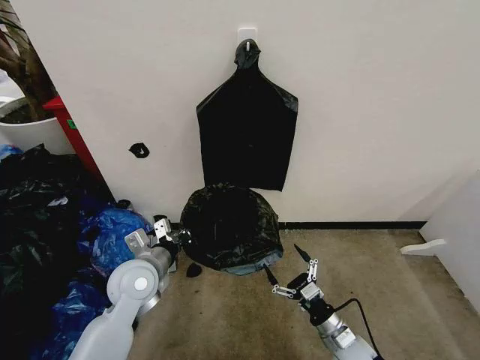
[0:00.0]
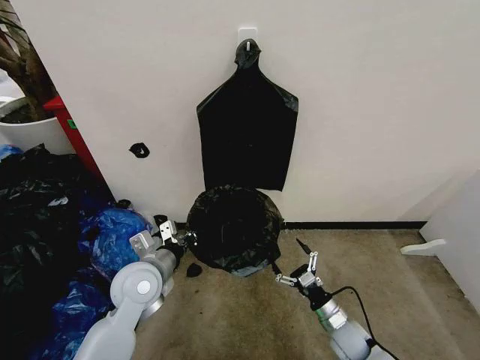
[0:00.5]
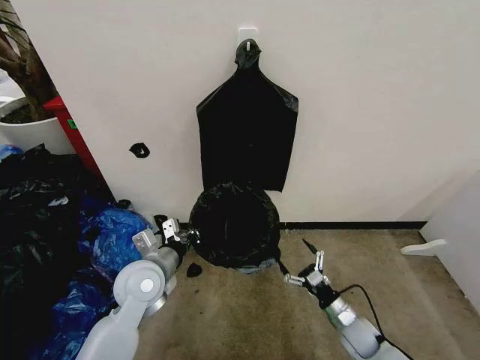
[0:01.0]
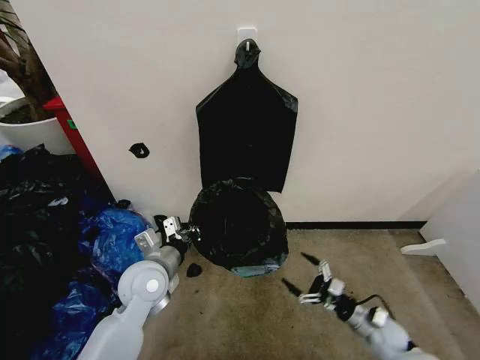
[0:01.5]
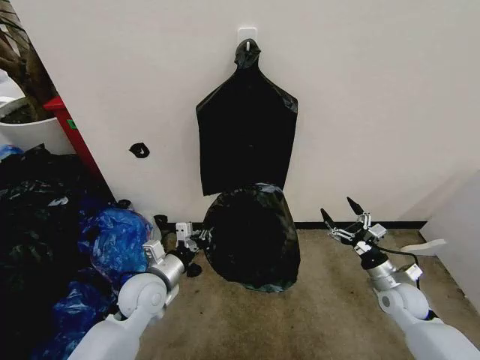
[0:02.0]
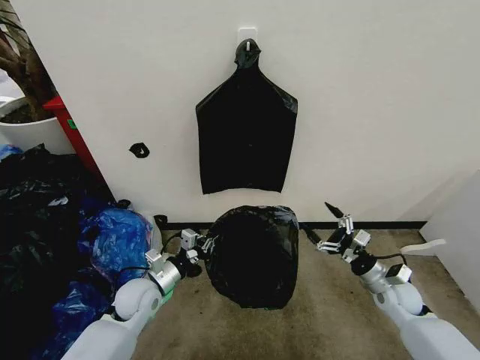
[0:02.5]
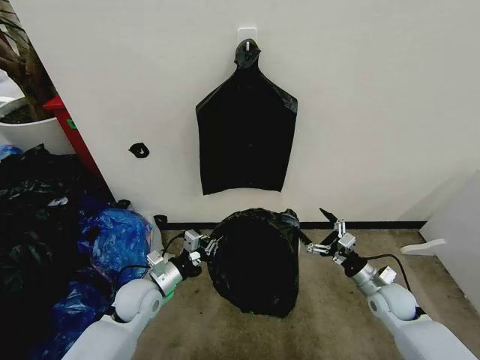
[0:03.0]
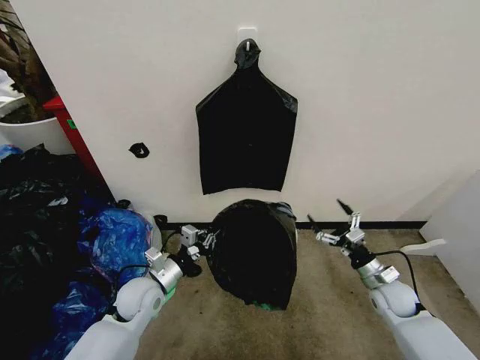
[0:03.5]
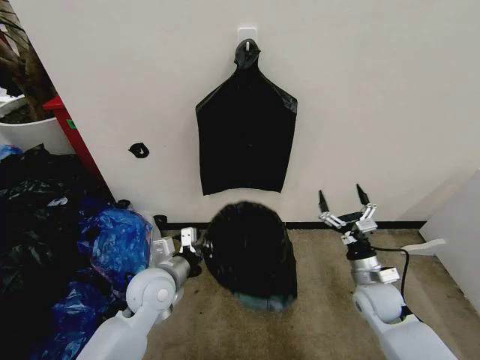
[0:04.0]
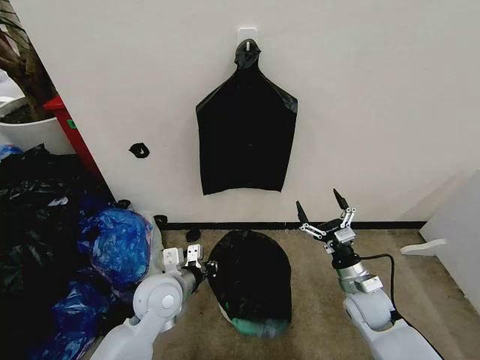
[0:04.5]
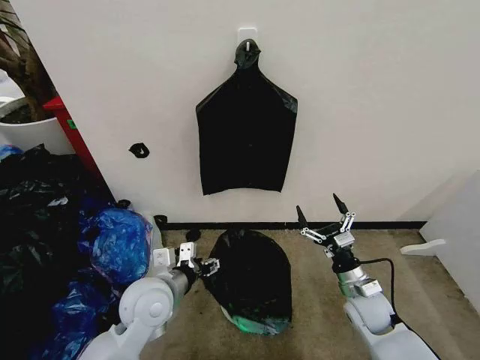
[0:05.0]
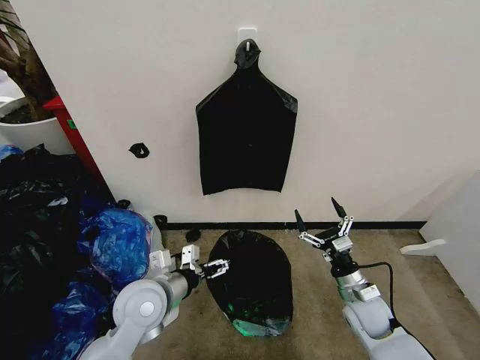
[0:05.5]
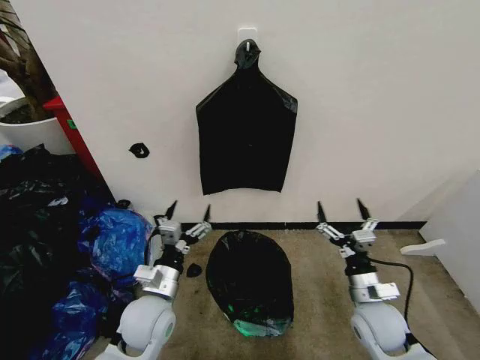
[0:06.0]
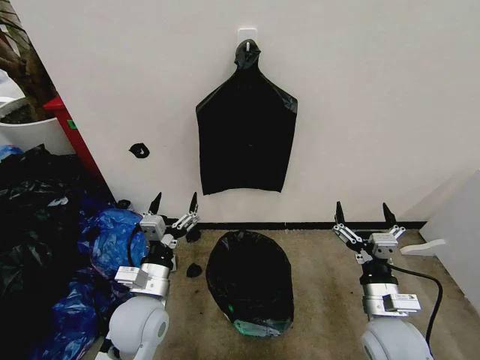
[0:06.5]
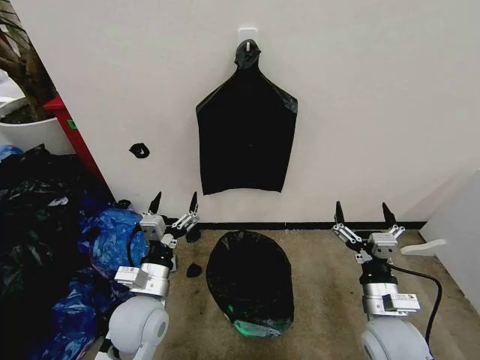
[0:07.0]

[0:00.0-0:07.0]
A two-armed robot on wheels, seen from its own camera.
Task of the whole recording: Place the garbage bag over the trash bin.
0:00.0 to 0:02.0: The right gripper shifts roughly 20 cm to the right, forward and upward. Meanwhile the left gripper is displaced downward by roughly 5 cm.
0:03.5 to 0:05.0: The right gripper is displaced to the left by roughly 10 cm. Meanwhile the left gripper moves upward and to the right, roughly 10 cm, and opens up.
0:05.0 to 0:07.0: The right gripper is displaced backward and upward by about 10 cm.

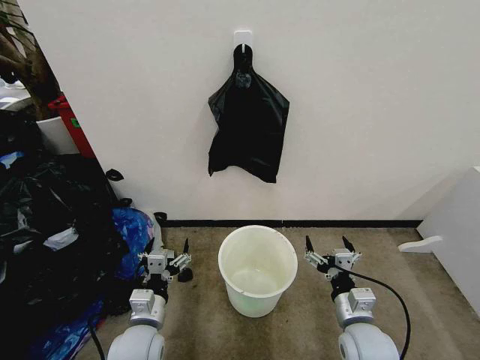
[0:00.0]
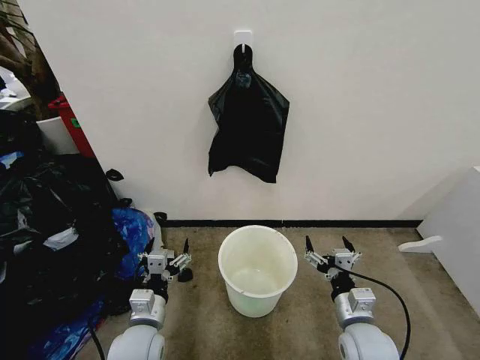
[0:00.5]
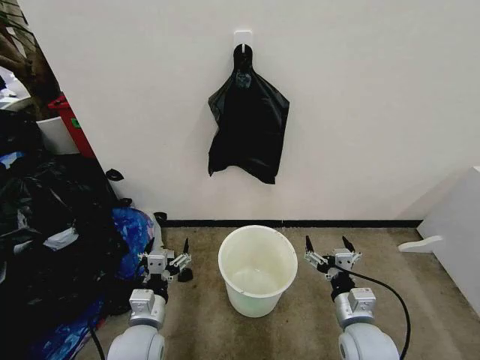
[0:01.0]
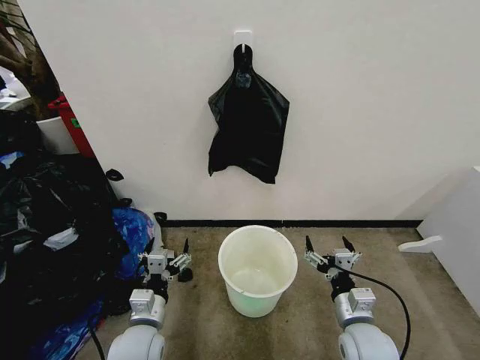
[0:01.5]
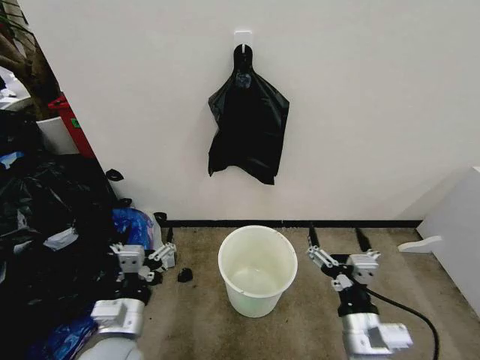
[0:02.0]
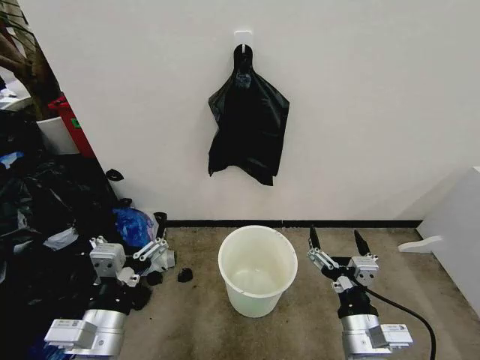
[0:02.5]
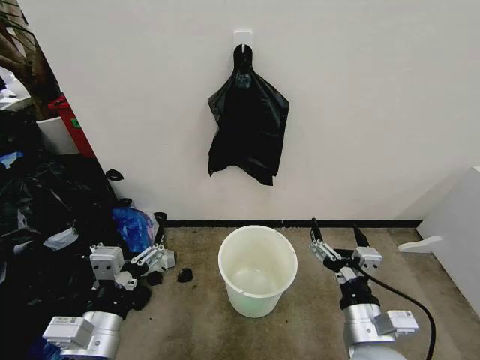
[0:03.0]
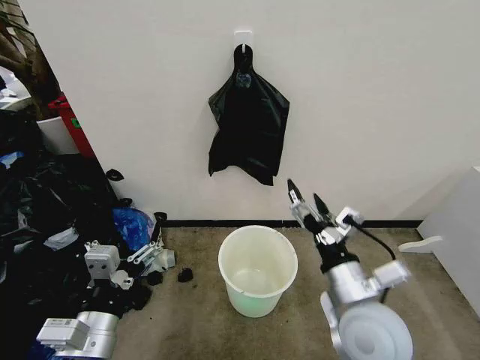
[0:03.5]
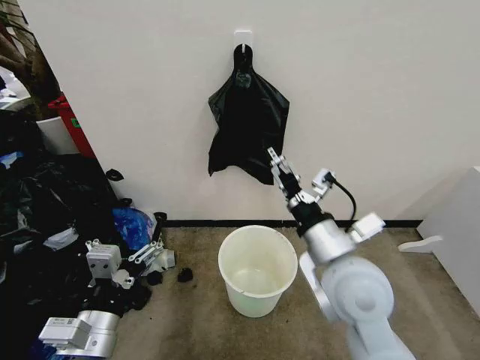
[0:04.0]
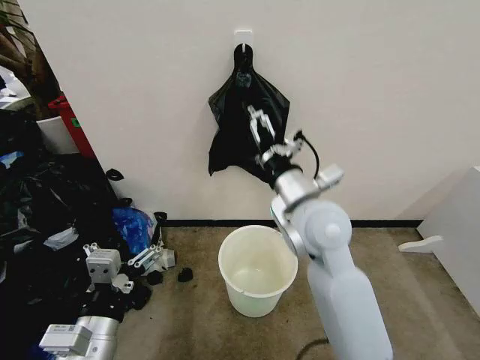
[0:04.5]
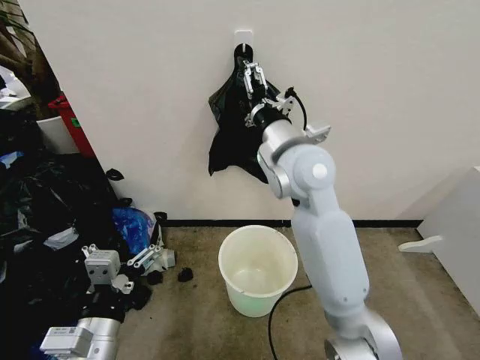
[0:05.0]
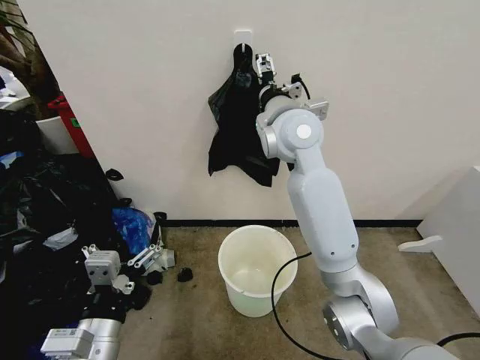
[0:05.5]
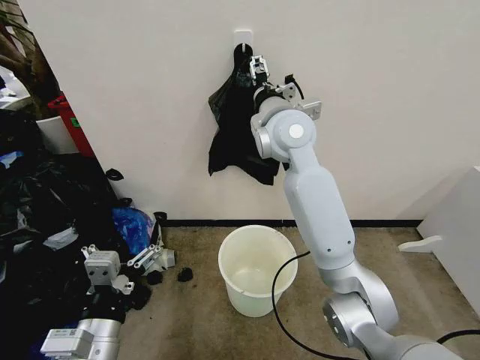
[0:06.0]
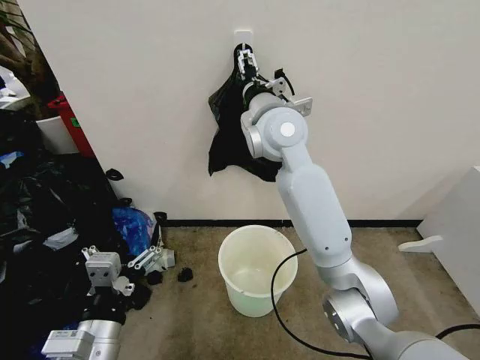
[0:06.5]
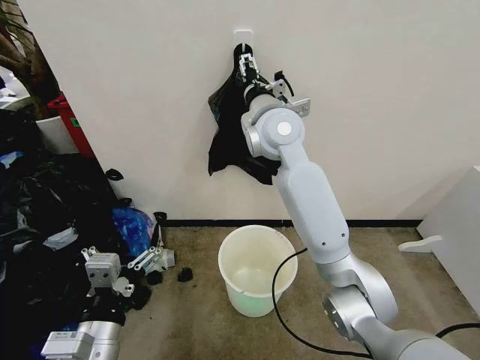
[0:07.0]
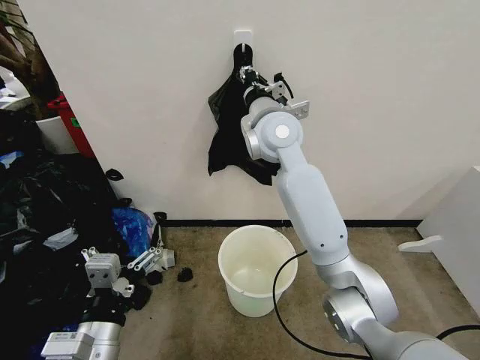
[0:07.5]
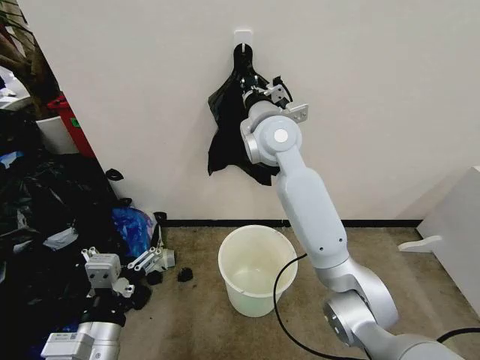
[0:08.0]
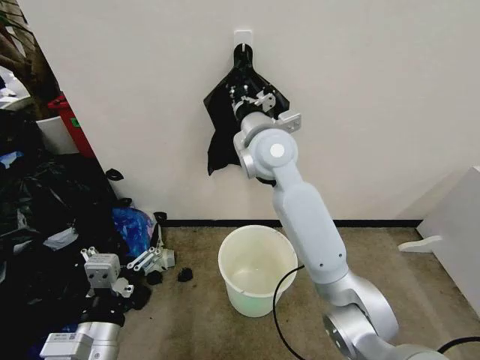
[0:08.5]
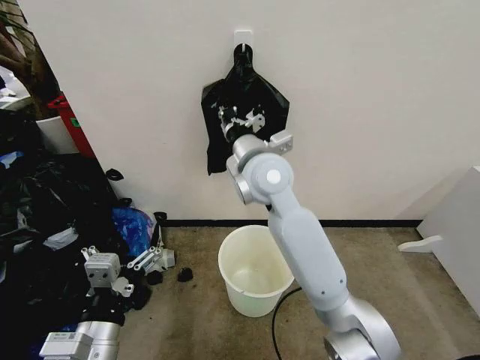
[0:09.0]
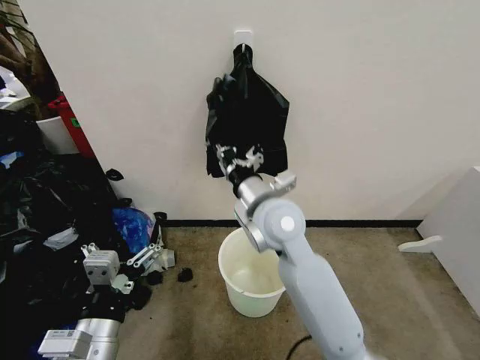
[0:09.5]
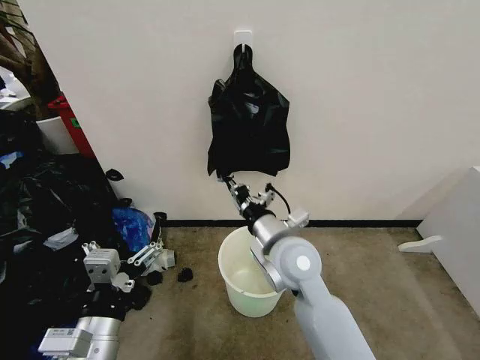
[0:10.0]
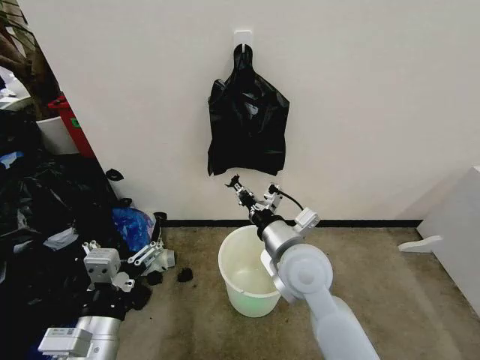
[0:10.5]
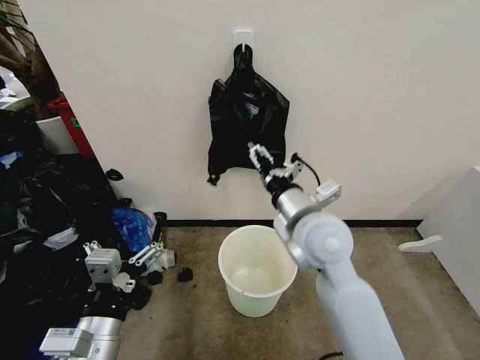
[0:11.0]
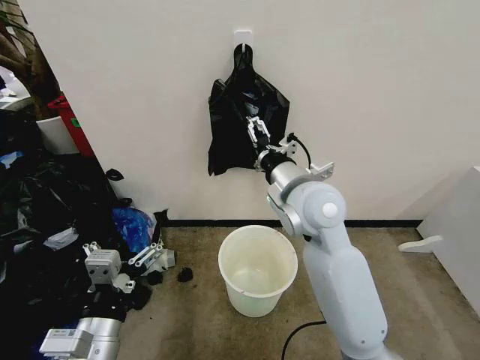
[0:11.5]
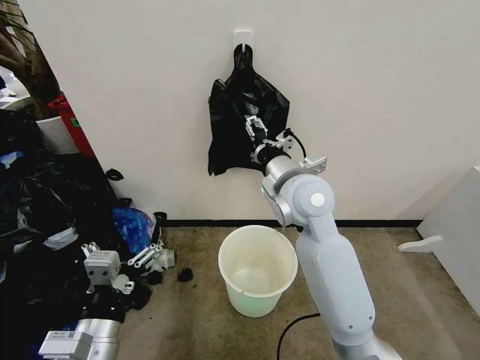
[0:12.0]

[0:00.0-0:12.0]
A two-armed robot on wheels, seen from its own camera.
Task of the whole recording: Place the garbage bag over the trash bin.
0:02.0 to 0:04.0: The right gripper shifts about 15 cm upward and forward. Meanwhile the left gripper goes approximately 5 cm upward.
0:04.0 to 0:06.0: The right gripper moves forward and upward, approximately 25 cm.
0:06.0 to 0:08.0: The right gripper closes up.
0:08.0 to 0:10.0: The right gripper is displaced backward and downward by about 20 cm.
0:10.0 to 0:12.0: The right gripper goes approximately 10 cm upward and forward, and opens.

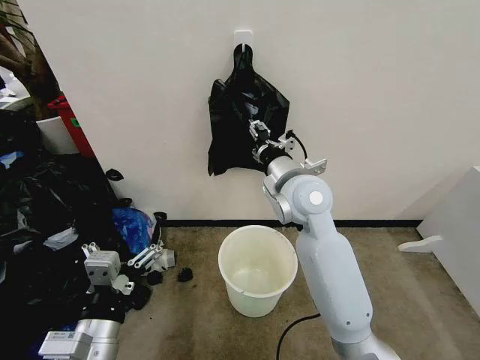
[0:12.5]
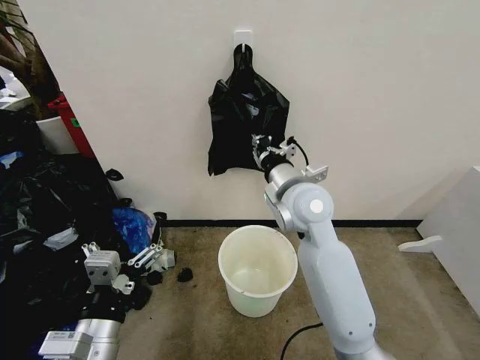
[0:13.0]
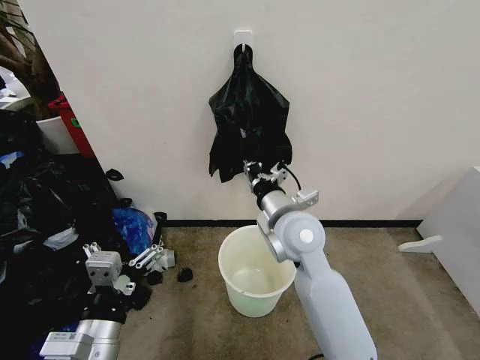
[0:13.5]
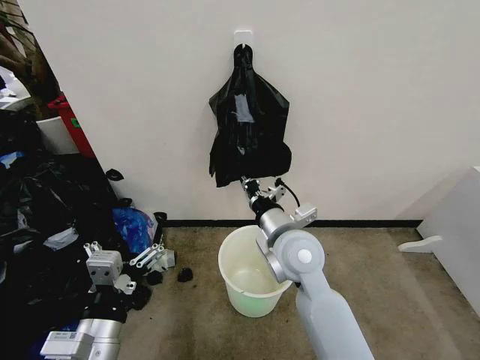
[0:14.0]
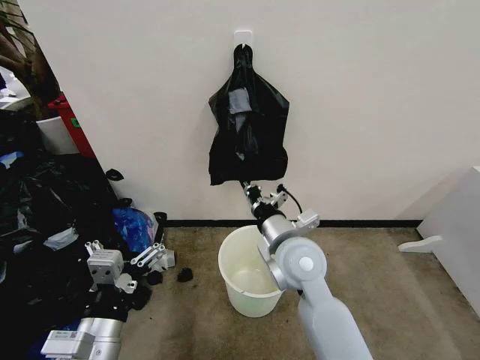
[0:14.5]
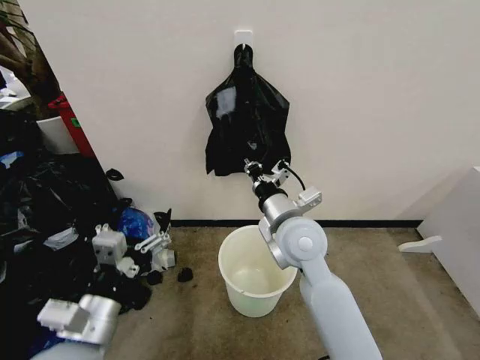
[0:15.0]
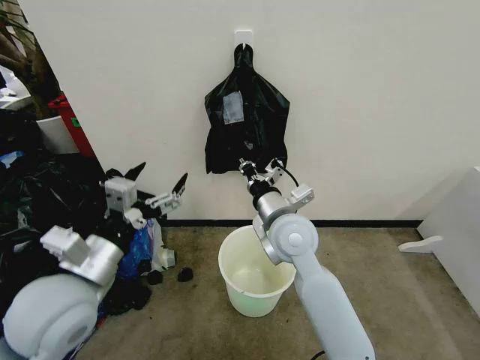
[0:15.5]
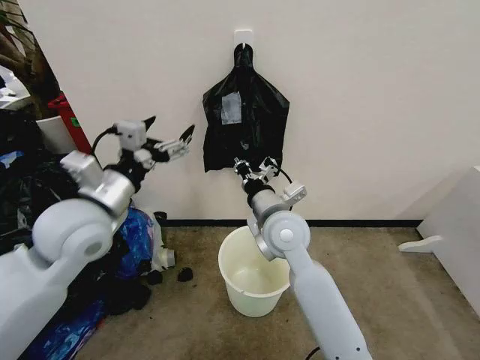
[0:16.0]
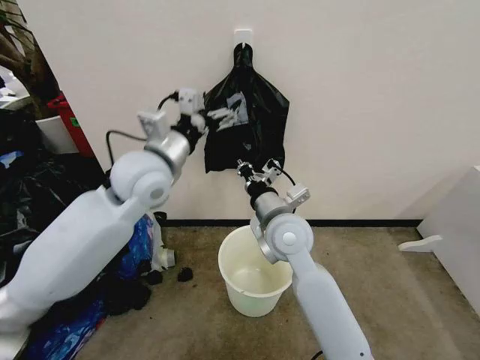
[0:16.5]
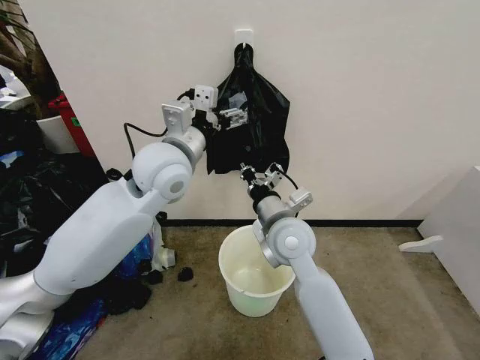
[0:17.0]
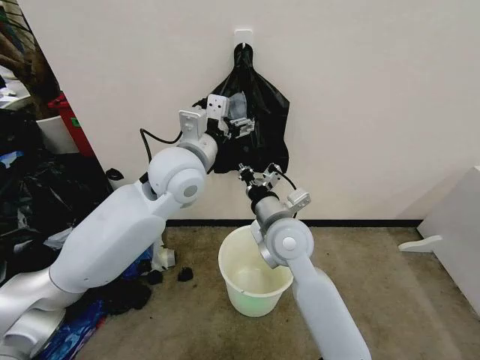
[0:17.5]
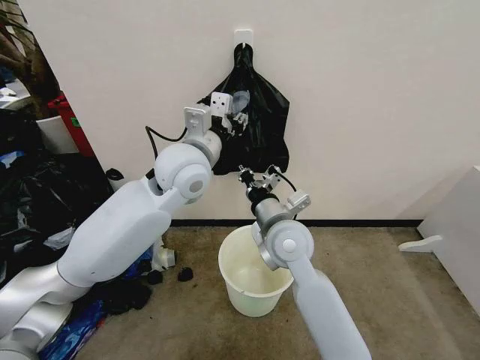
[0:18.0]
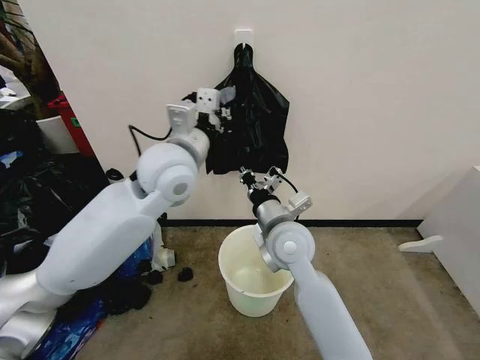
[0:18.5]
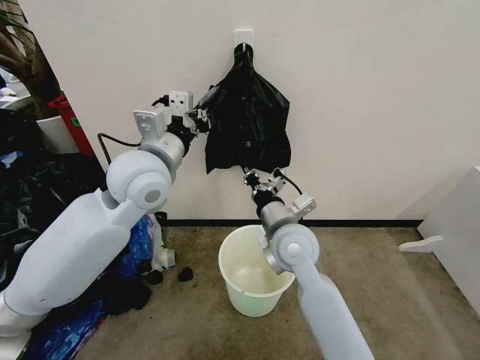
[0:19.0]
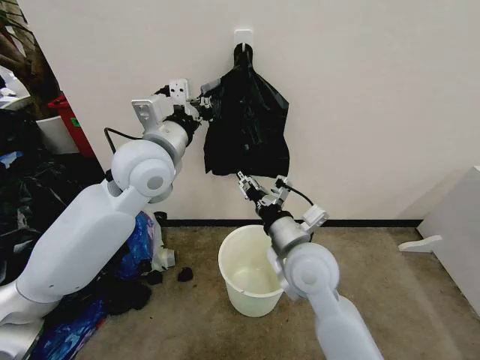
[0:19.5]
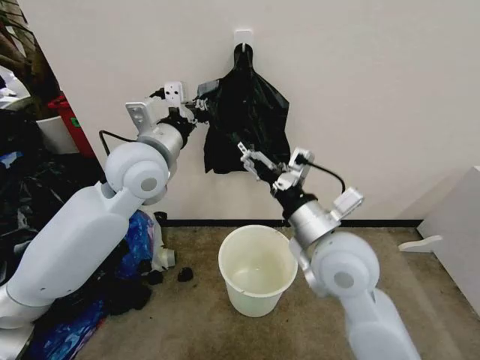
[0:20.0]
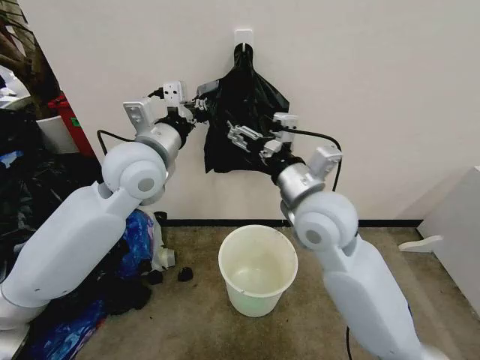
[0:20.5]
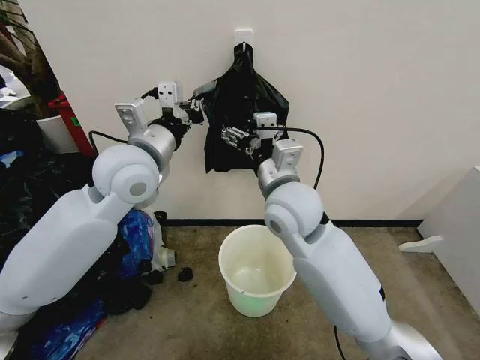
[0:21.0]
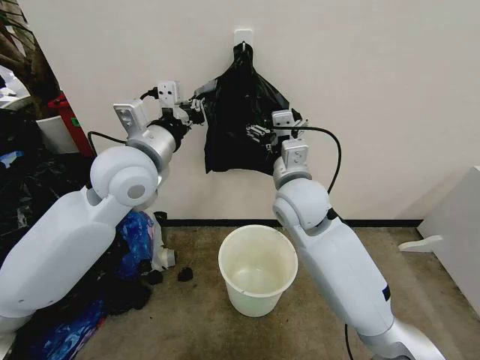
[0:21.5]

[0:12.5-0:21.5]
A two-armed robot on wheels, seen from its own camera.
Task of the whole recording: Place the garbage bag over the trash bin.
0:12.5 to 0:14.5: The right gripper travels downward and backward by approximately 10 cm, and closes its fingers.
0:14.5 to 0:17.0: The left gripper shifts about 35 cm forward and upward.
0:17.0 to 0:19.5: The left gripper closes, while the right gripper heads backward, covering approximately 5 cm, and opens up.
0:19.5 to 0:21.5: The right gripper travels forward and upward by some 10 cm, and opens up.
